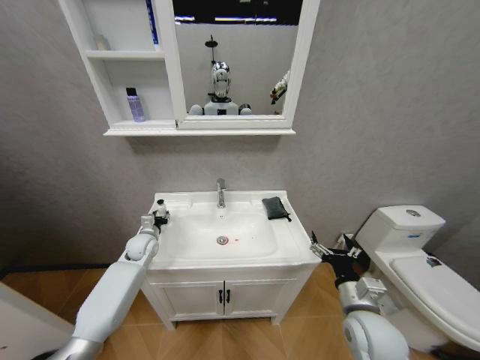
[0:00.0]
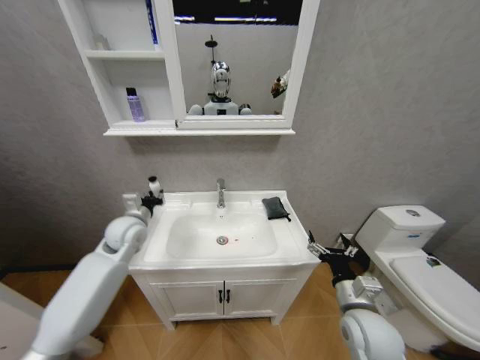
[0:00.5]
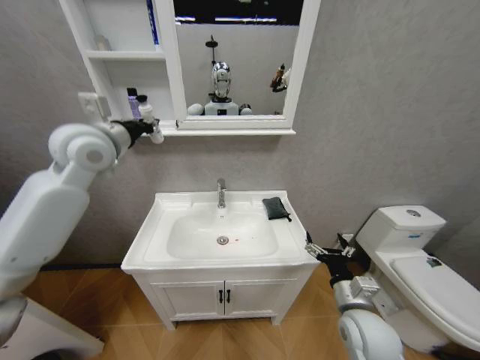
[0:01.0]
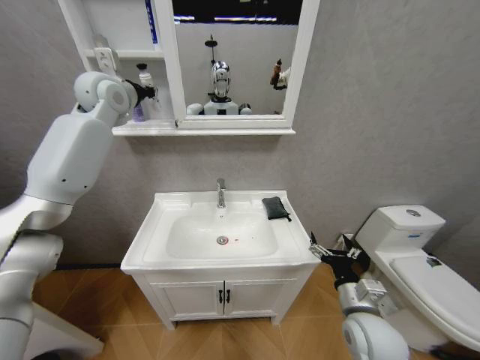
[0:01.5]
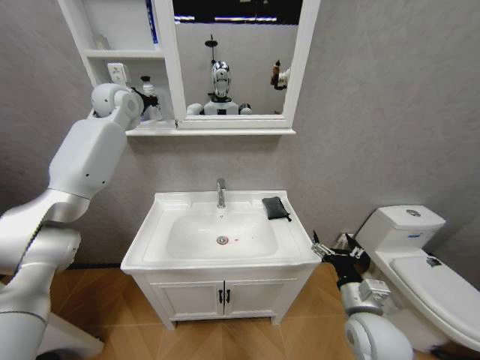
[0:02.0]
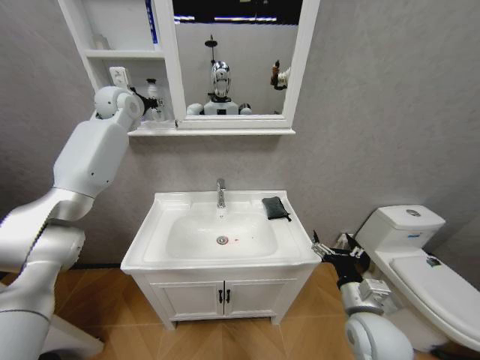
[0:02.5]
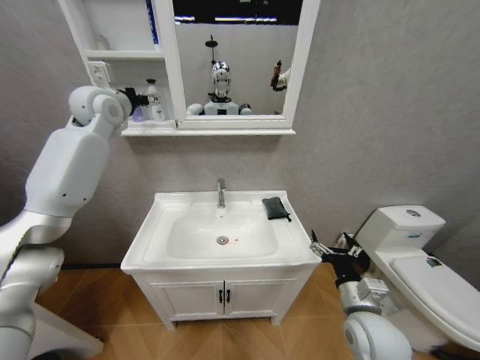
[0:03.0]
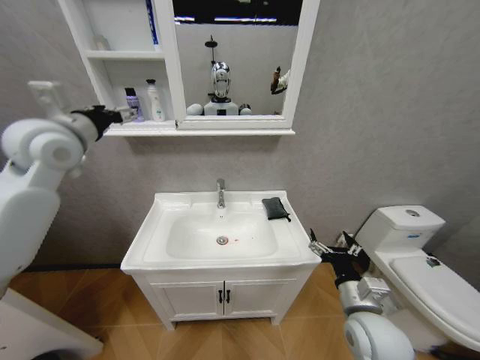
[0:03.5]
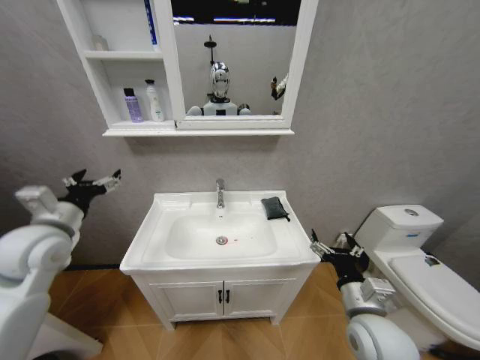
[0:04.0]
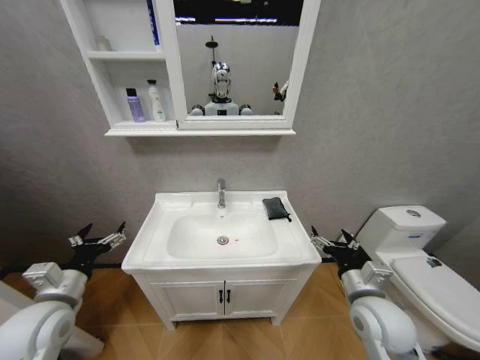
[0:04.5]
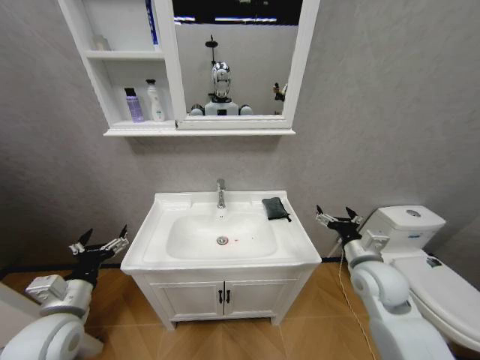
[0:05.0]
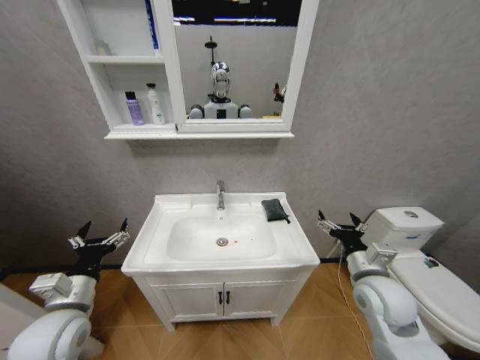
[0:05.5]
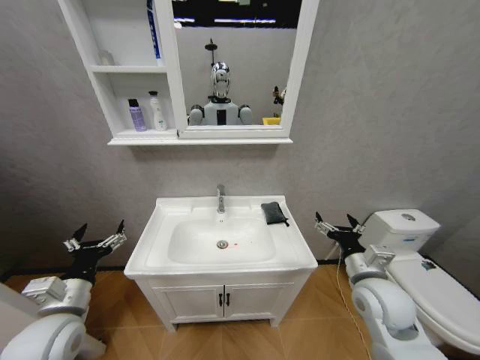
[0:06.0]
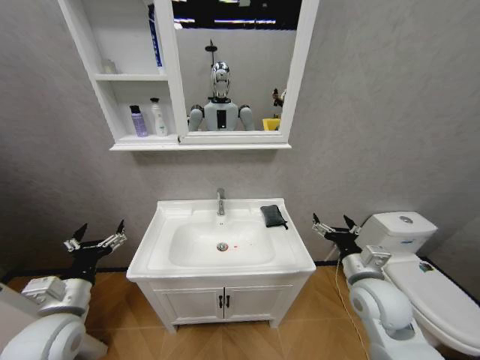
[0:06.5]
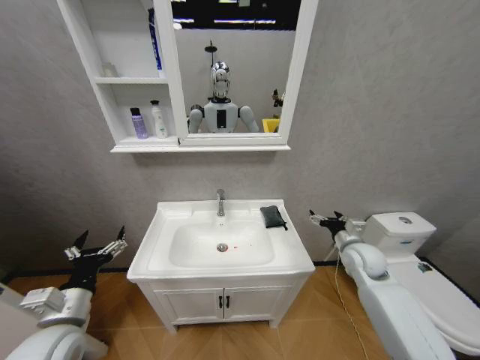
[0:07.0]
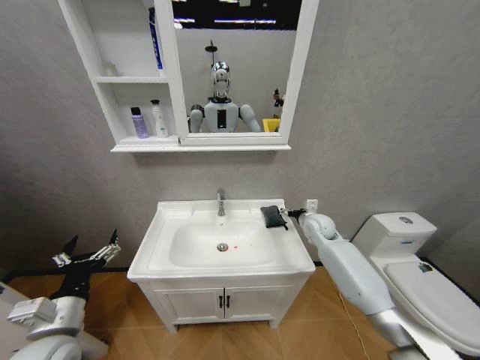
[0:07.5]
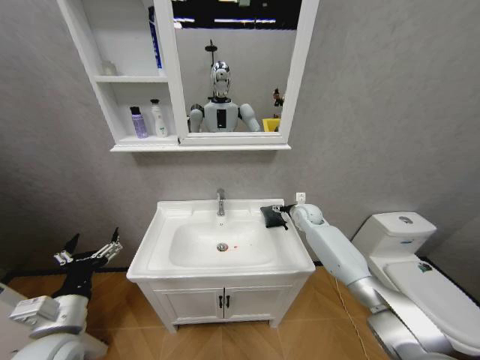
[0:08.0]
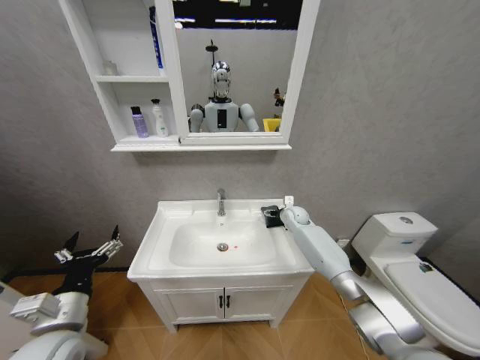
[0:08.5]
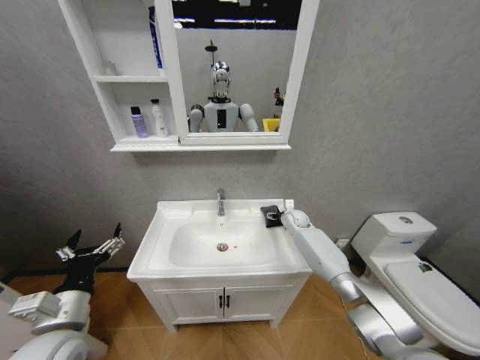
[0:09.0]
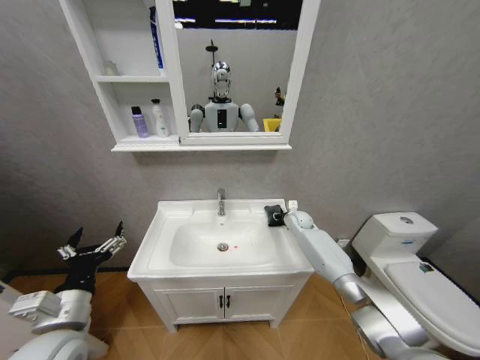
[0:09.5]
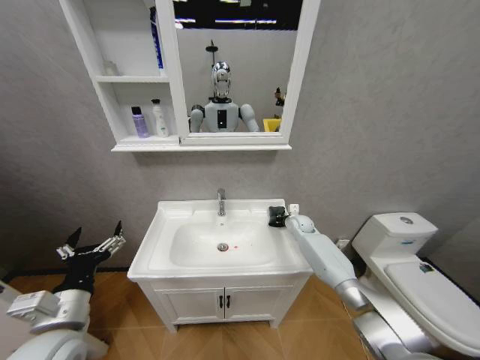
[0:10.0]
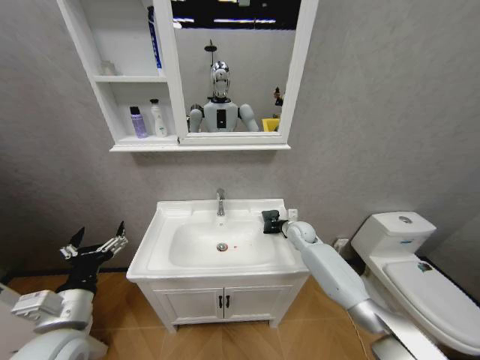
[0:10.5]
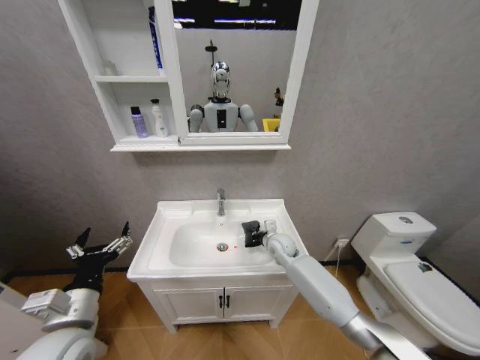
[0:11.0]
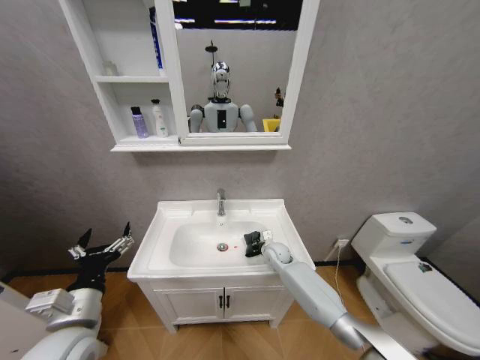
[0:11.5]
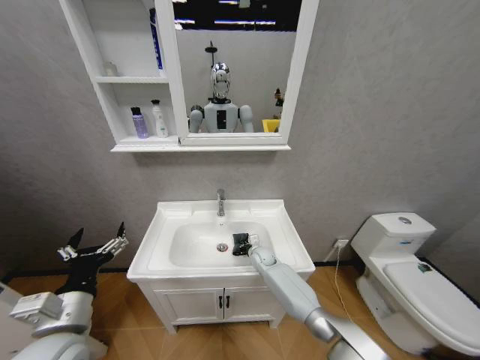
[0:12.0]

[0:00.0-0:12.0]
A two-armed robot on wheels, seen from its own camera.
Task of the whole recording: Move facial cleanser and shampoo from washbasin to cabinet, then wipe washbasin with towel.
0:00.0 to 0:02.0: The left gripper goes approximately 40 cm upward, and closes up.
0:02.0 to 0:04.0: The left gripper shifts approximately 35 cm backward and downward, and opens its fingers.
0:04.0 to 0:06.0: The left gripper goes some 15 cm downward and backward, while the right gripper moves forward, approximately 5 cm.
0:06.0 to 0:08.0: The right gripper goes some 30 cm forward.
0:08.0 to 0:10.0: The right gripper heads downward, covering roughly 5 cm, and closes.
0:10.0 to 0:12.0: The right gripper shifts some 20 cm to the left, downward and backward.

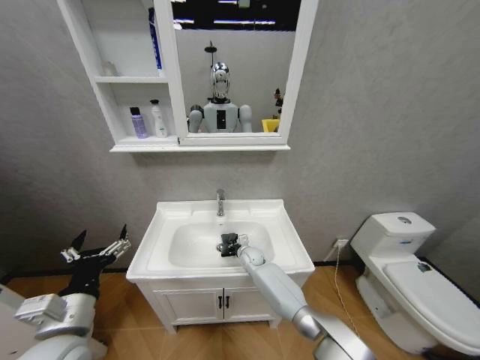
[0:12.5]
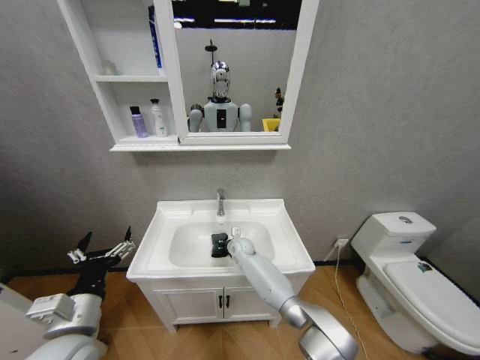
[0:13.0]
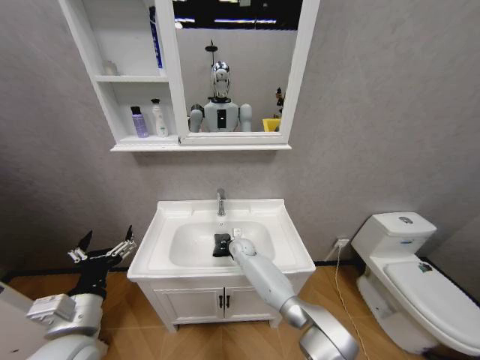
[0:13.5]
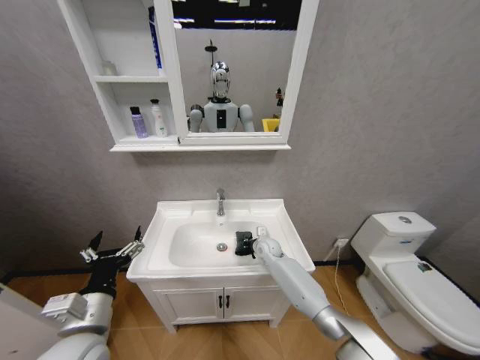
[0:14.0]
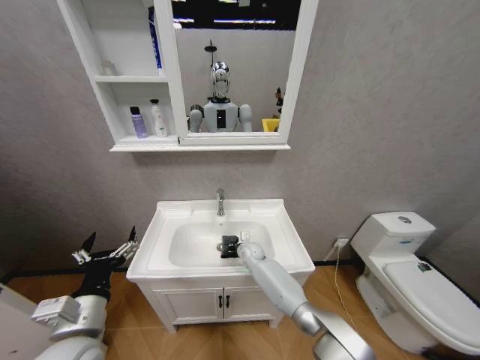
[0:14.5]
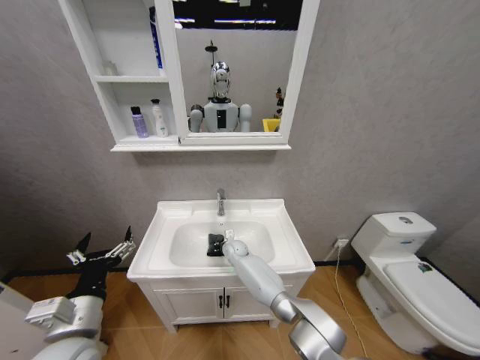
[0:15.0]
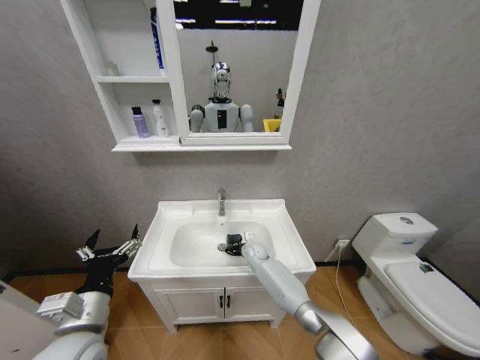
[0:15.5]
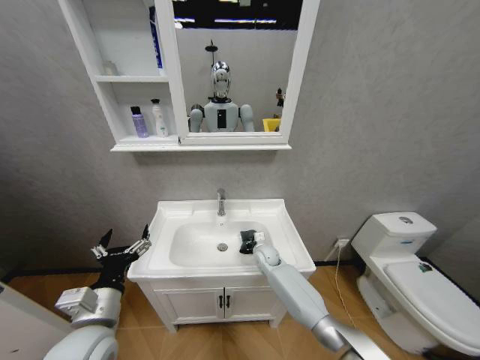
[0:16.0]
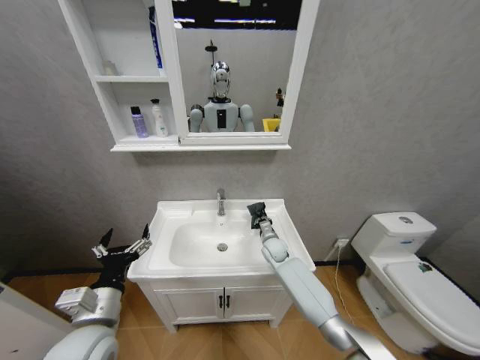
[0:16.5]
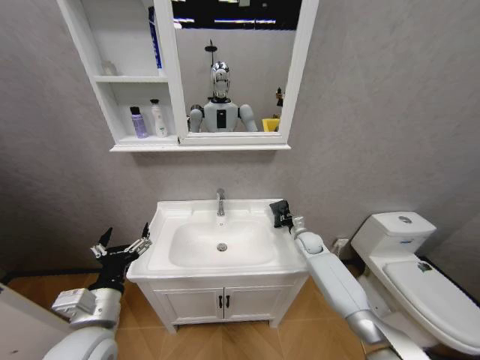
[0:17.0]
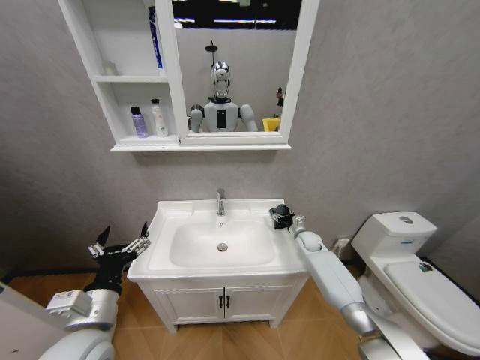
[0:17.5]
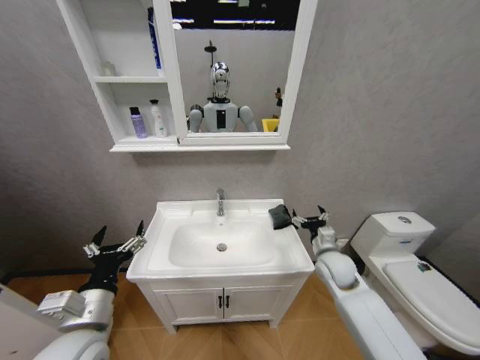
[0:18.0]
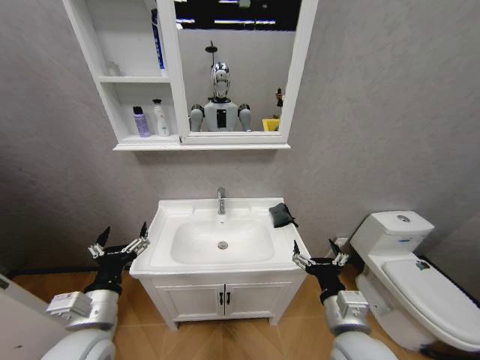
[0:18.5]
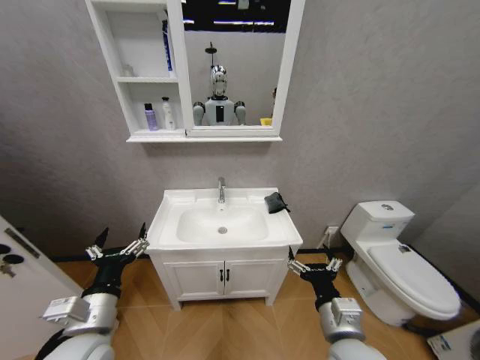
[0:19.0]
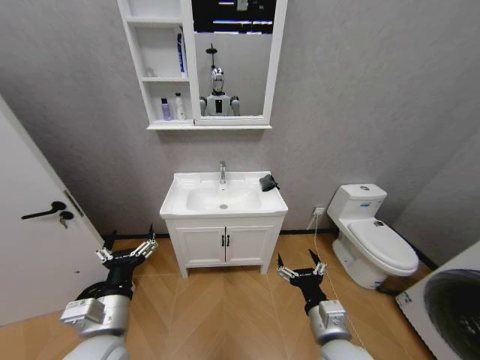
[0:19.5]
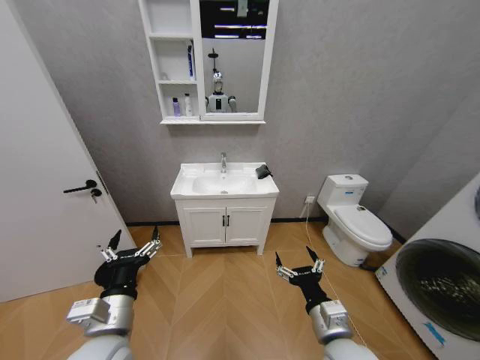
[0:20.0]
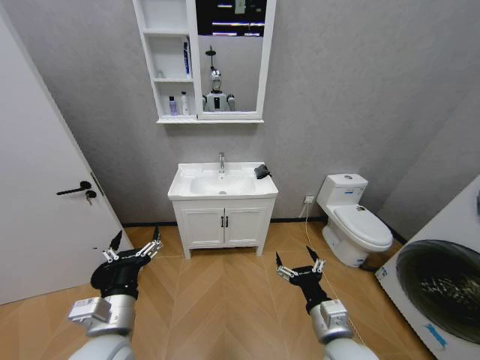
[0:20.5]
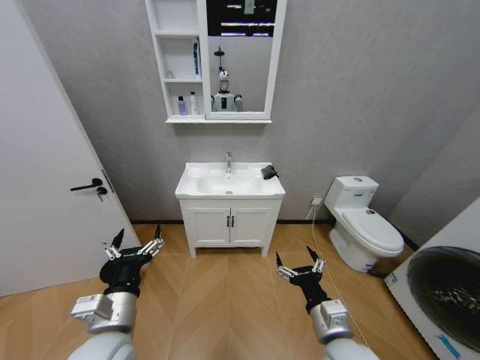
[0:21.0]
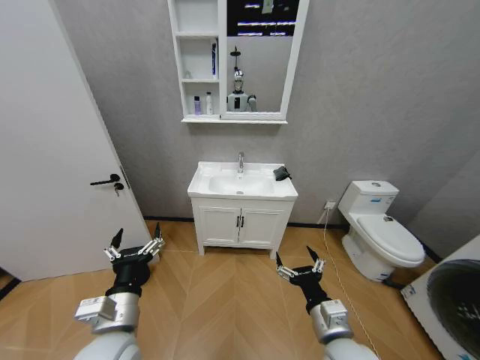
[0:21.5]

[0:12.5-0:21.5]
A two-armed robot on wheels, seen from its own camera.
Task of the whole recording: Move facial cleanser and shampoo from washbasin to cabinet, then wipe washbasin with towel.
0:12.5 to 0:14.5: The right gripper goes left and right, approximately 10 cm each way, reversing 2 times.
0:14.5 to 0:17.0: The right gripper is displaced to the right by roughly 20 cm.
0:17.0 to 0:19.5: The right gripper goes about 35 cm backward, and opens its fingers.
